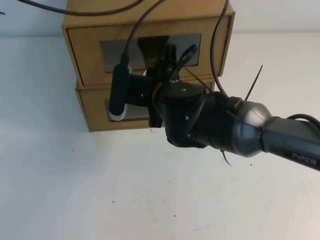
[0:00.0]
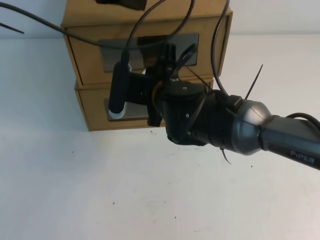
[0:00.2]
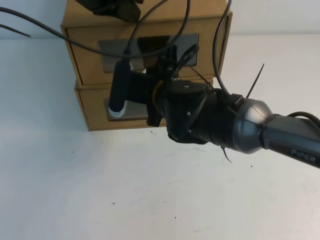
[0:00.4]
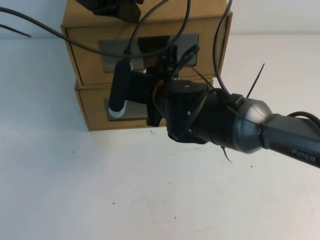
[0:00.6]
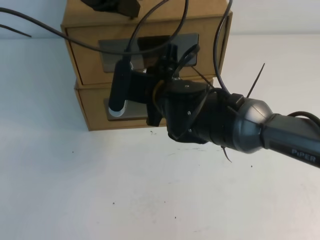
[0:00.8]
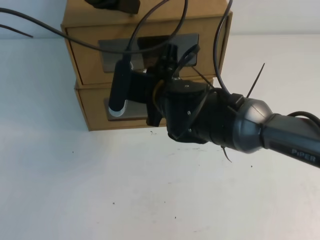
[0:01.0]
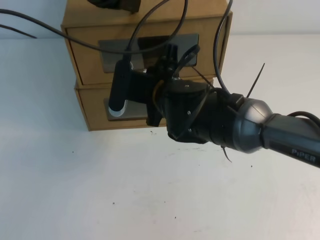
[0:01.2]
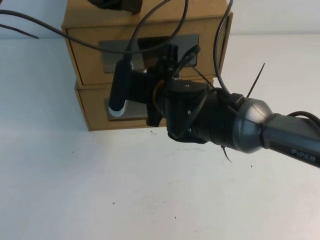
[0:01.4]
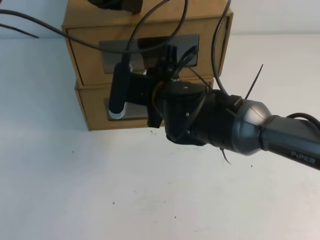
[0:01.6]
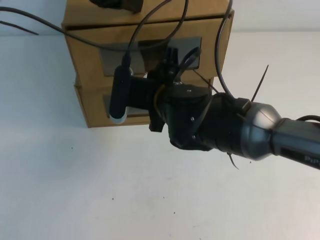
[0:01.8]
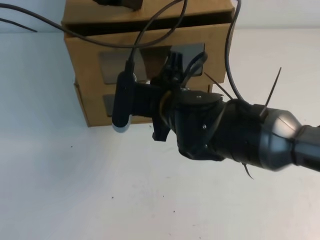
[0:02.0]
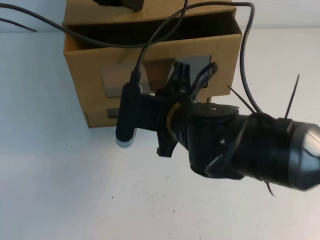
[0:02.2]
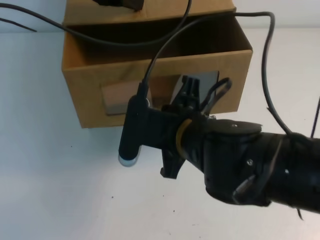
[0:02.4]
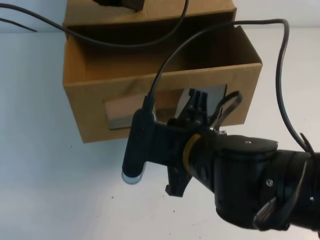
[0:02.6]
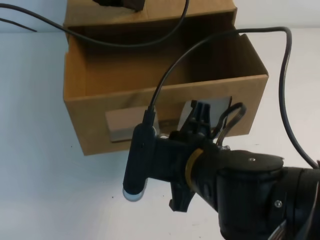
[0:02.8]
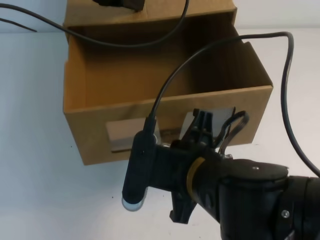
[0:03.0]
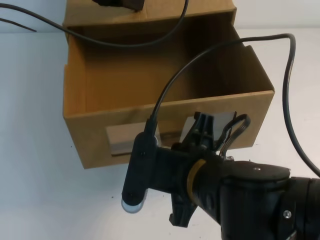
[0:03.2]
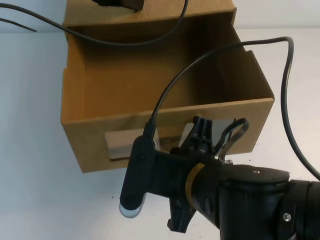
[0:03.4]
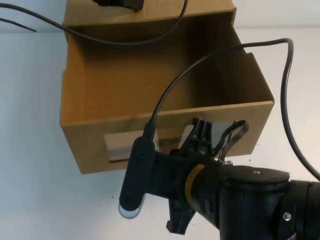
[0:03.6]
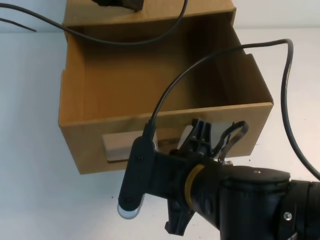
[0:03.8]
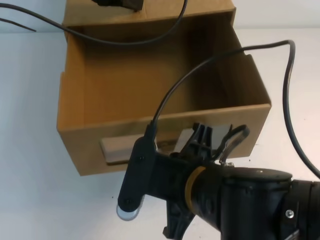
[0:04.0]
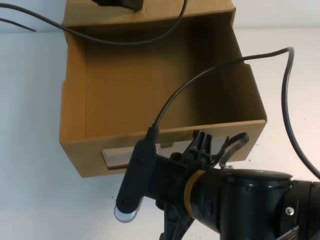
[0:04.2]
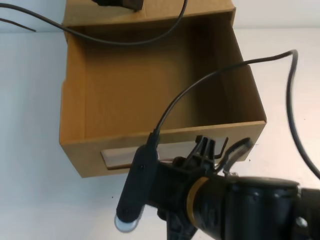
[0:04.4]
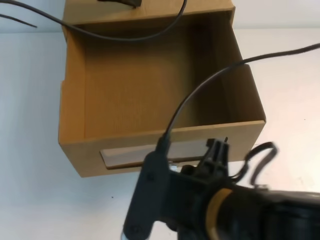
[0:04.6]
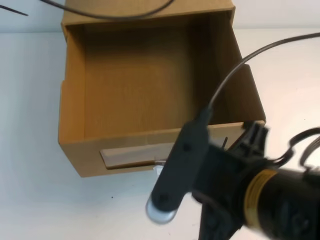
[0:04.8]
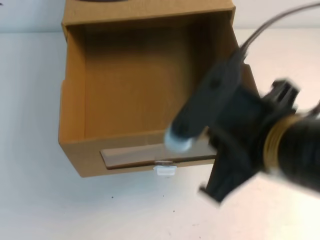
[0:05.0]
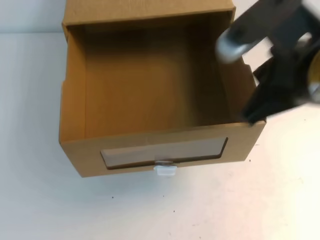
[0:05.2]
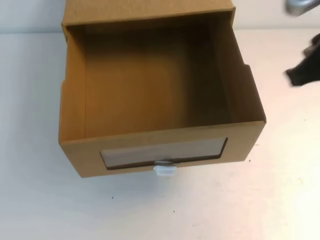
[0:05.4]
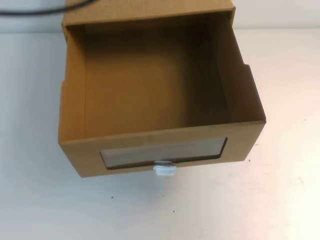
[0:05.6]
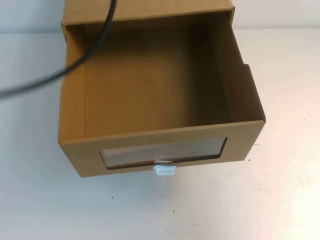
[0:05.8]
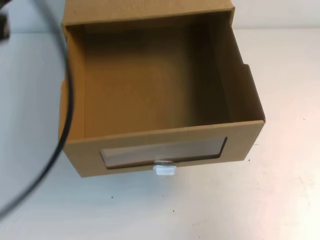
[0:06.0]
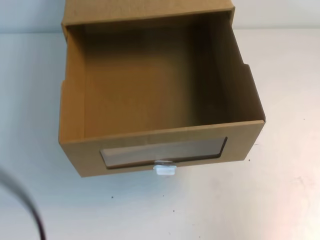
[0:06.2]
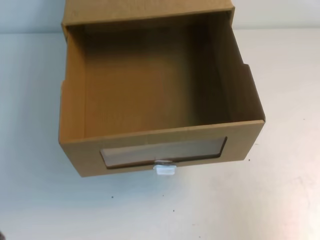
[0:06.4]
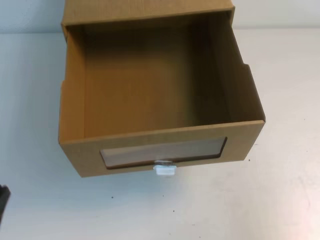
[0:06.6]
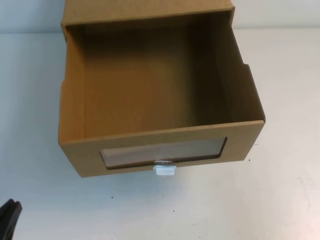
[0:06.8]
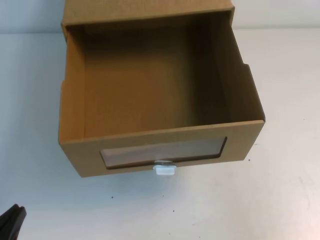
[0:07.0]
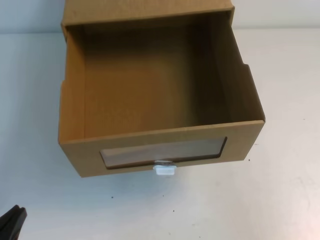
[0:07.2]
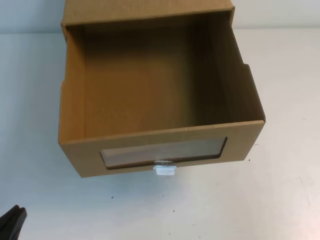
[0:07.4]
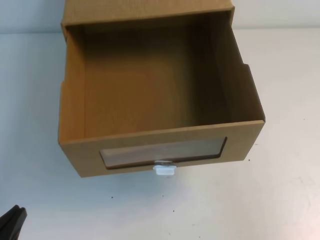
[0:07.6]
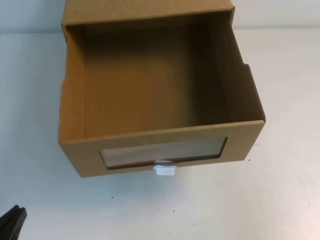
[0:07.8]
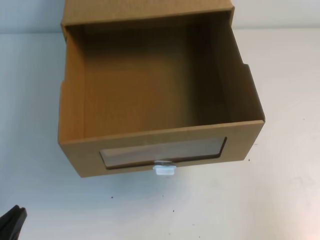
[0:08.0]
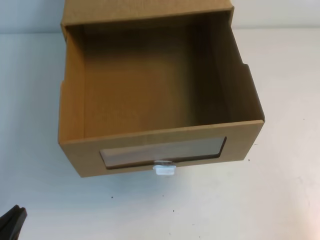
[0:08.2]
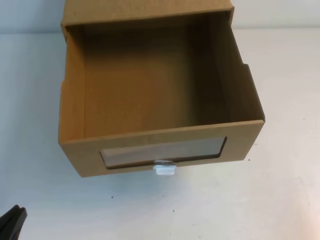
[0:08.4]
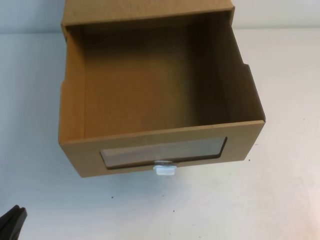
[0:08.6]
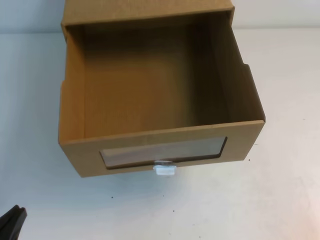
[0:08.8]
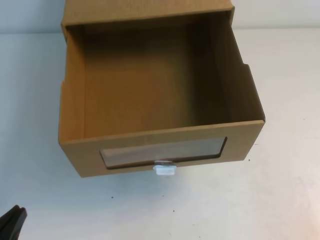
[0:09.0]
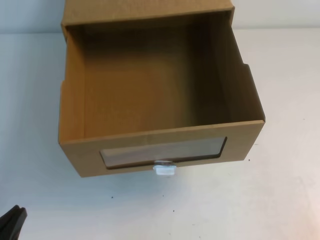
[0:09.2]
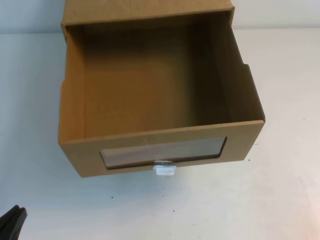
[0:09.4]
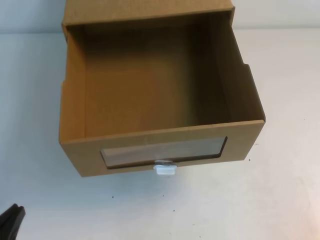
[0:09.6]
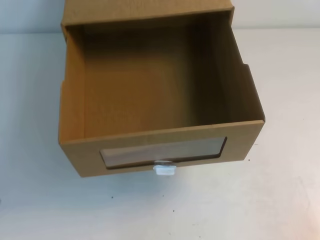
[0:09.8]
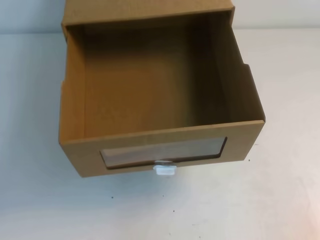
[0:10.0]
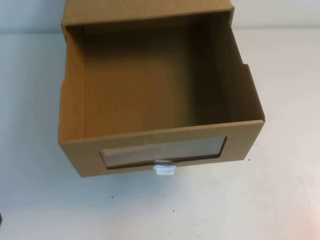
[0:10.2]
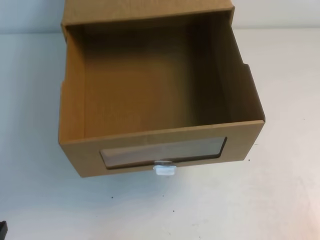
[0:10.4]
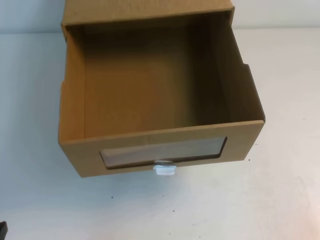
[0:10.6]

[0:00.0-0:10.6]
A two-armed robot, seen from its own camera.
Task of the whole recording: open the shoebox on the table.
Step, 0:00.0 to 0:10.6: Open the shoe box.
0:00.0 to 0:01.6: The grippers move only a little.
0:01.6 to 0:03.0: The right gripper travels backward by approximately 15 cm.
0:03.0 to 0:04.6: The right gripper changes place by roughly 5 cm, and opens up.
0:04.6 to 0:06.0: The right gripper shifts about 25 cm to the right, and closes its fingers; the left gripper is displaced backward and to the left by roughly 25 cm.
0:06.0 to 0:07.6: The left gripper moves downward, roughly 30 cm, while the right gripper moves downward and backward, roughly 10 cm.
0:07.6 to 0:09.0: The right gripper moves downward, approximately 10 cm.

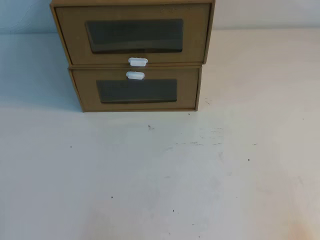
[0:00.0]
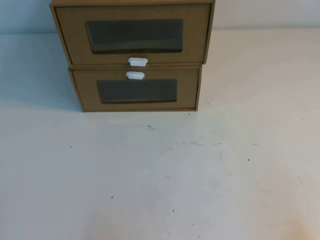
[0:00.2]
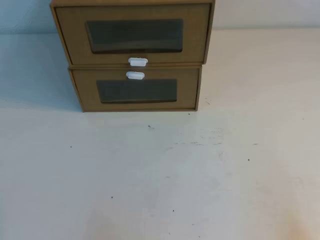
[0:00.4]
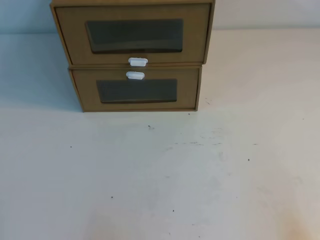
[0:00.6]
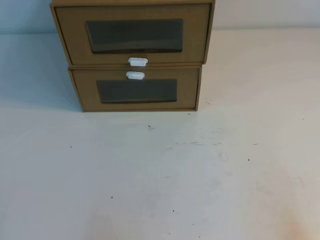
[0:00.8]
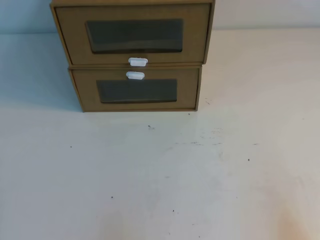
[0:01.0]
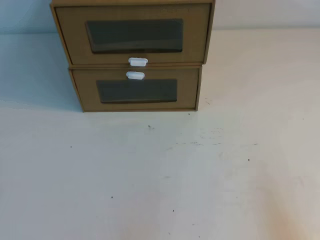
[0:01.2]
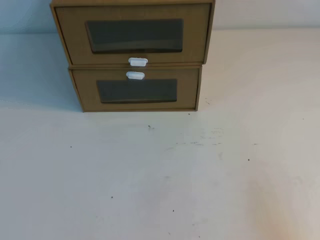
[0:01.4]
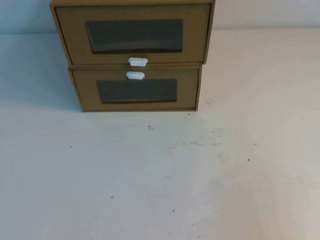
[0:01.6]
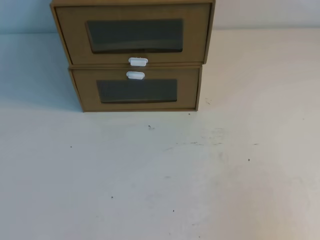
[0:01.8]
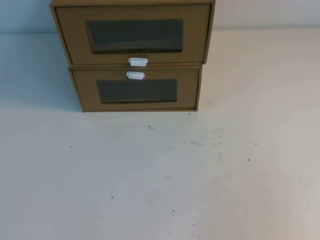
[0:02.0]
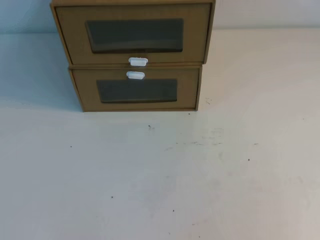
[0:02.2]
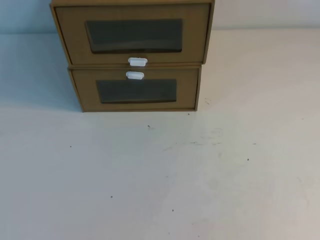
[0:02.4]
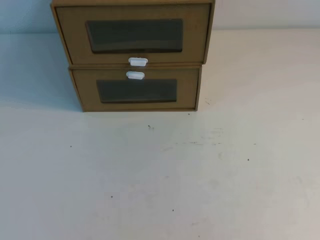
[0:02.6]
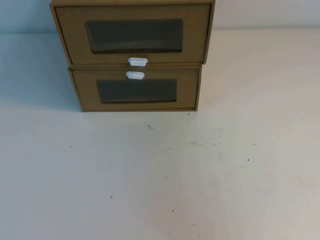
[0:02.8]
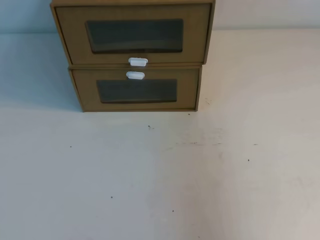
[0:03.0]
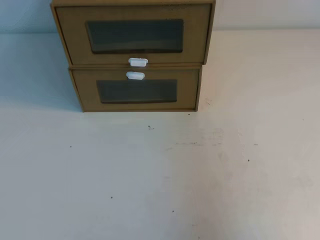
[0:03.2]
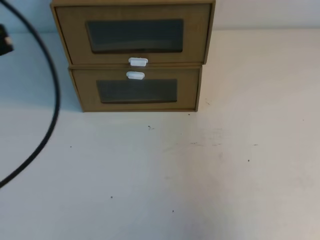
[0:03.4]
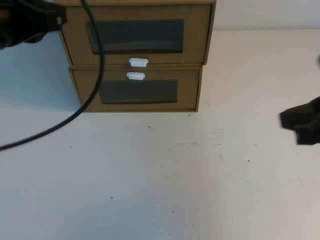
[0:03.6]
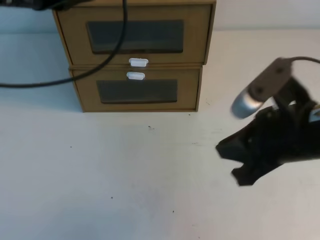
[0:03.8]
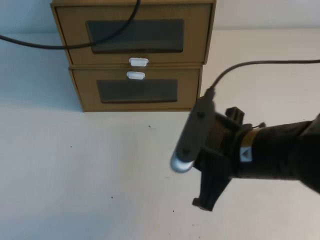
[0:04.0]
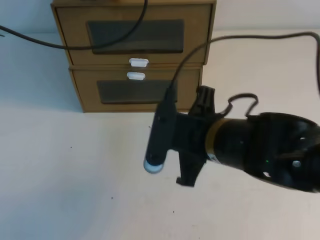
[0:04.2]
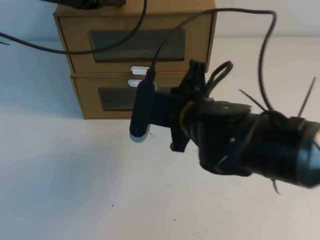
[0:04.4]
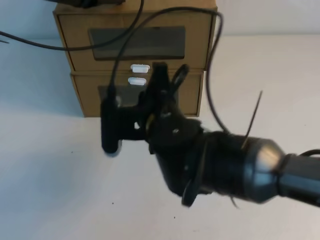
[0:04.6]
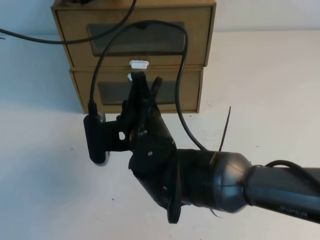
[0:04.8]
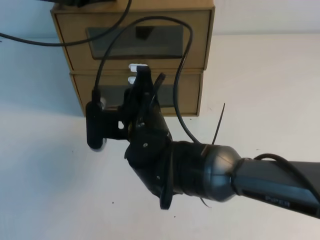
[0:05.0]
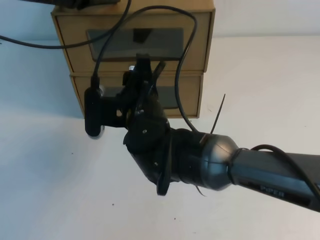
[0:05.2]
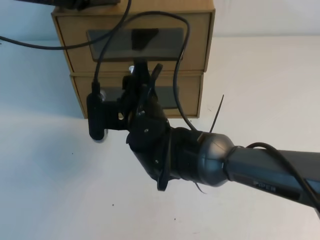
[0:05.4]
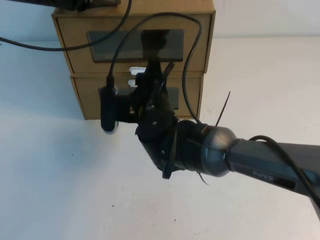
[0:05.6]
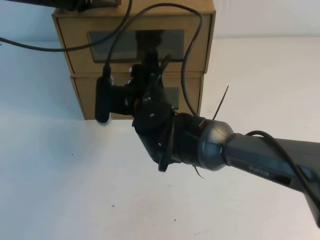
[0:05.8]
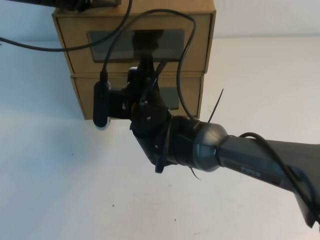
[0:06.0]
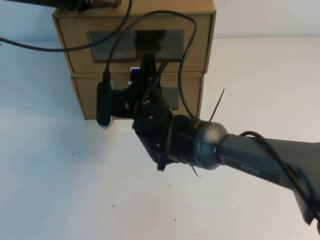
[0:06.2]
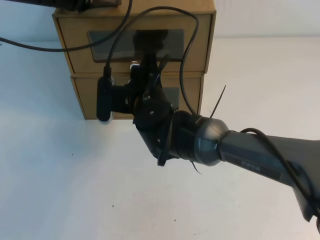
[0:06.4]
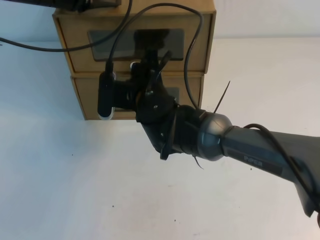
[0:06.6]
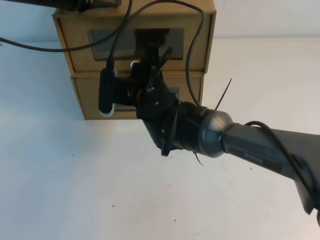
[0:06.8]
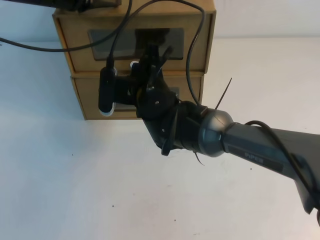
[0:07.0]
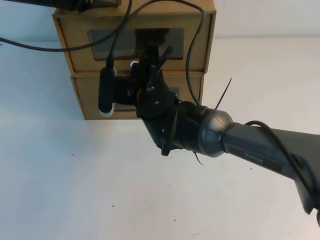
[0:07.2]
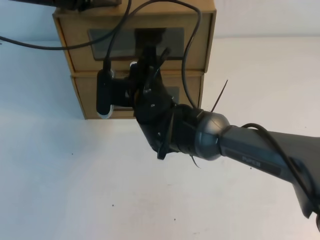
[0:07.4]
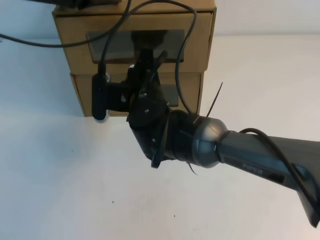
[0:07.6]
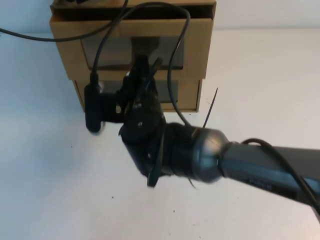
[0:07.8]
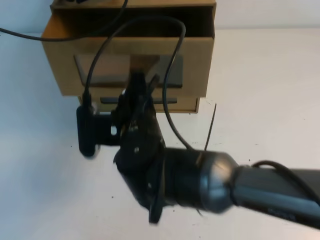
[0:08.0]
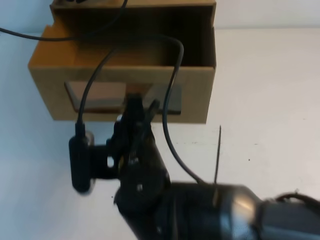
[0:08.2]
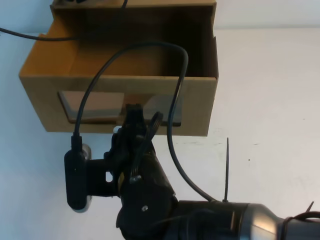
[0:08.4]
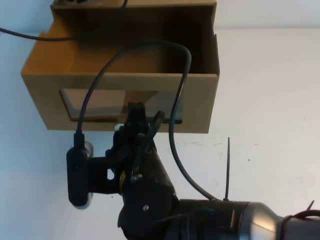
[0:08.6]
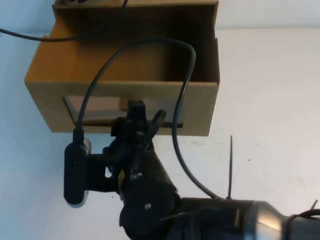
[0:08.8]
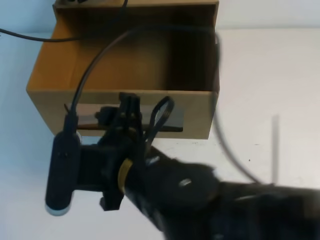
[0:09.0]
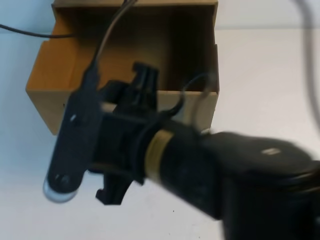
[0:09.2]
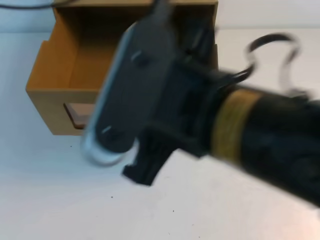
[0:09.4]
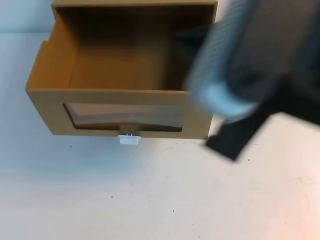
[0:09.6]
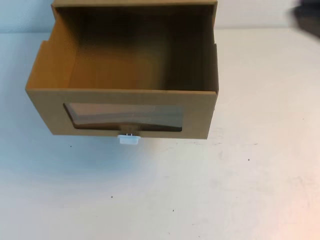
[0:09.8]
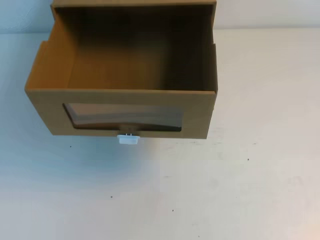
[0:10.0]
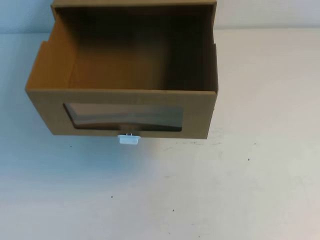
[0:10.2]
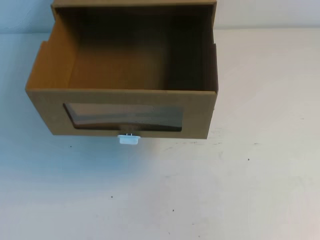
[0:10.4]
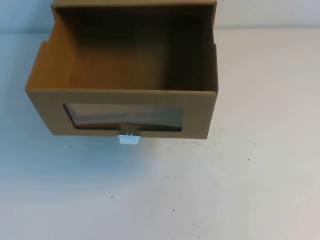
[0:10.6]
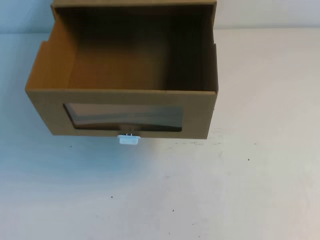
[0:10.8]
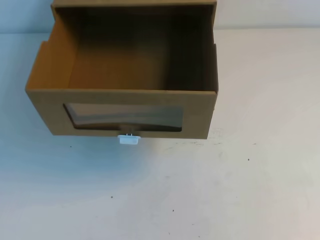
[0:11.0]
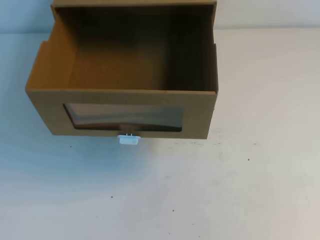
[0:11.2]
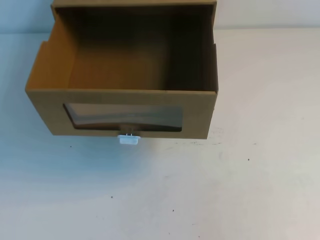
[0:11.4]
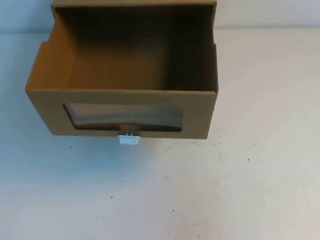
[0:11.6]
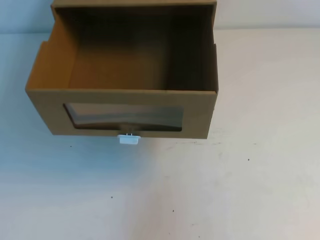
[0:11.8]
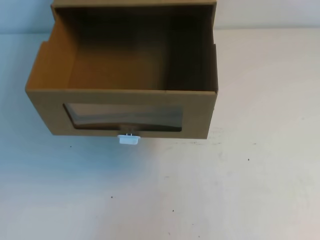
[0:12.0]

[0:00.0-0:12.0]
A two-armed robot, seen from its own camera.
Task of the whole recording: open the shoebox on the table.
0:01.6 to 0:03.0: Both grippers move upward, about 20 cm.
0:03.0 to 0:04.4: The right gripper shifts some 35 cm to the left, downward and forward; the left gripper is displaced forward by approximately 35 cm.
0:04.4 to 0:06.0: The right gripper goes some 10 cm forward and to the left, and opens its fingers.
0:06.0 to 0:07.6: The right gripper closes up.
0:07.6 to 0:09.0: The right gripper moves backward, roughly 15 cm, and opens up.
0:09.0 to 0:10.4: The right gripper heads to the right, covering approximately 30 cm, and closes its fingers. The left gripper is displaced backward by approximately 40 cm.
